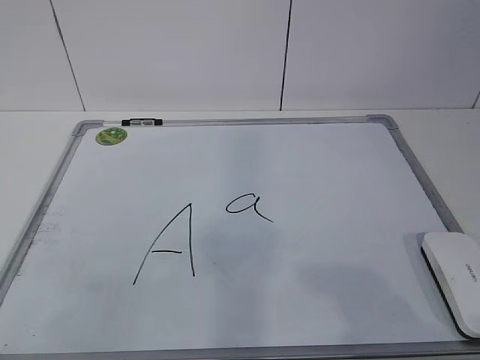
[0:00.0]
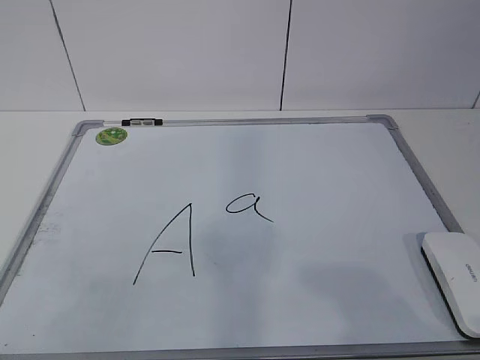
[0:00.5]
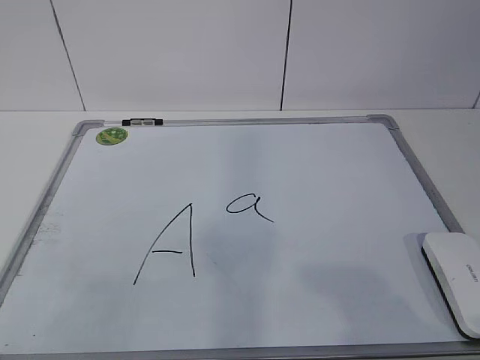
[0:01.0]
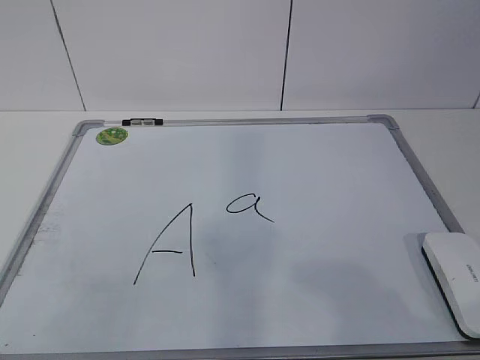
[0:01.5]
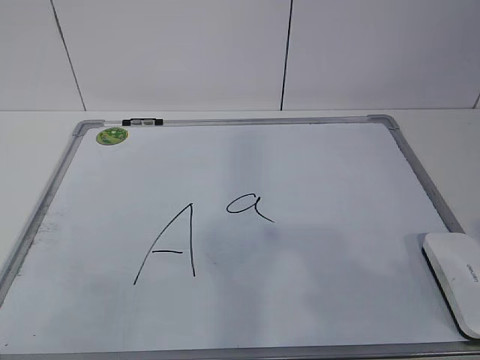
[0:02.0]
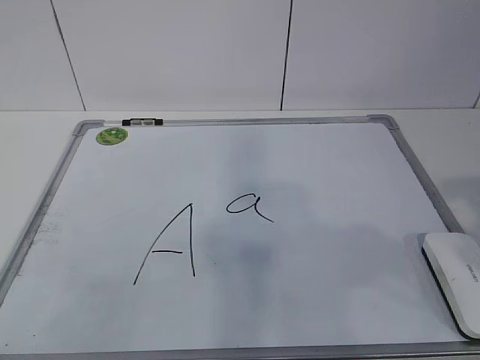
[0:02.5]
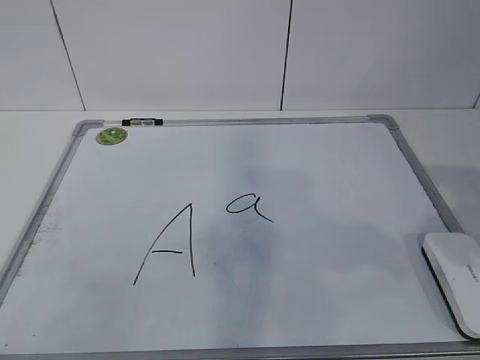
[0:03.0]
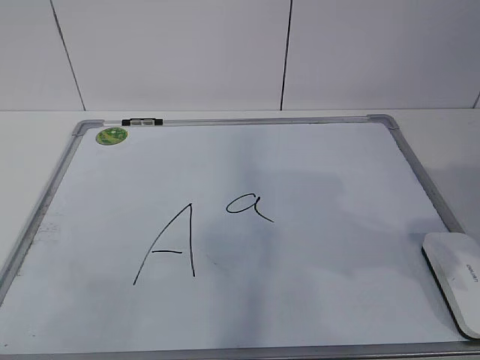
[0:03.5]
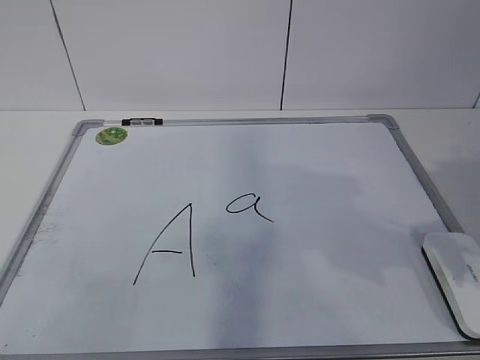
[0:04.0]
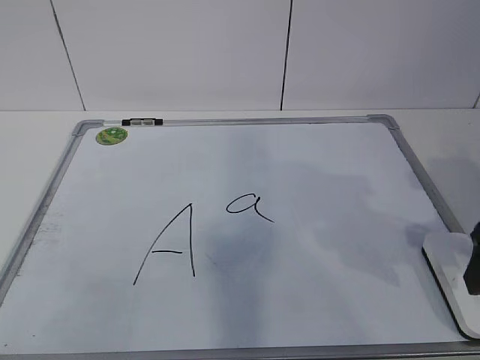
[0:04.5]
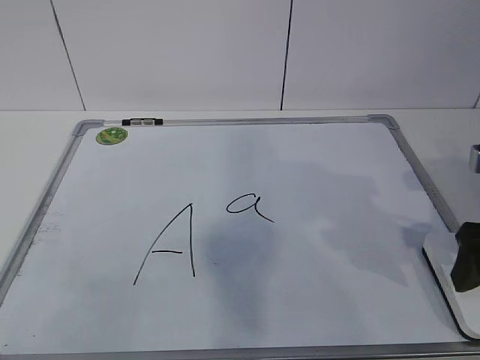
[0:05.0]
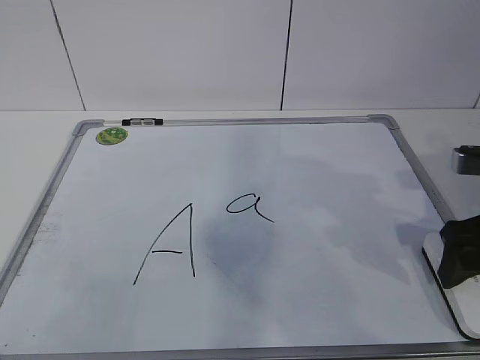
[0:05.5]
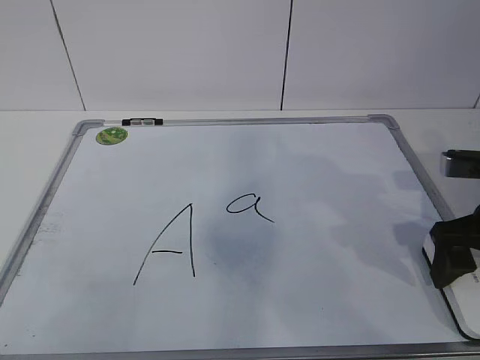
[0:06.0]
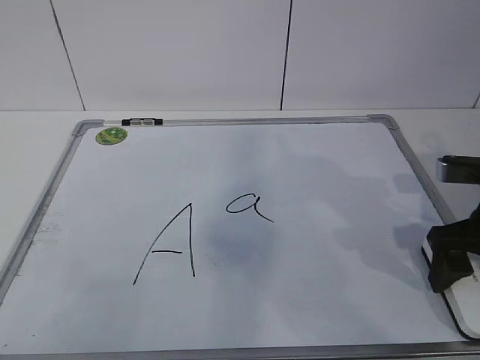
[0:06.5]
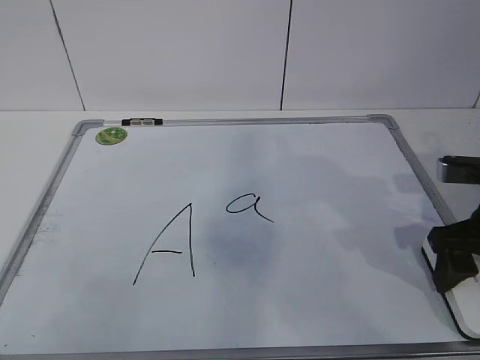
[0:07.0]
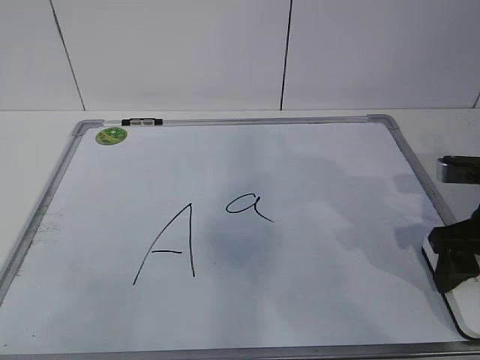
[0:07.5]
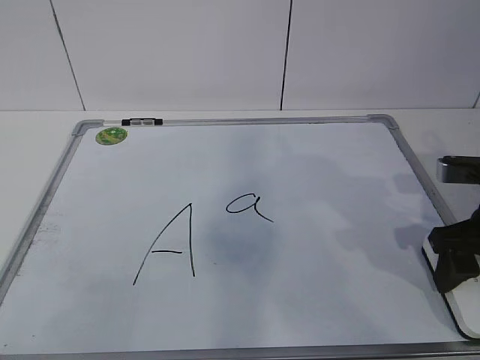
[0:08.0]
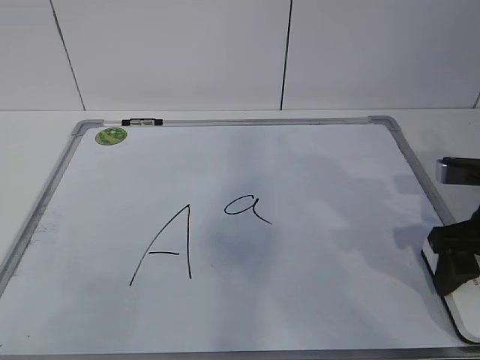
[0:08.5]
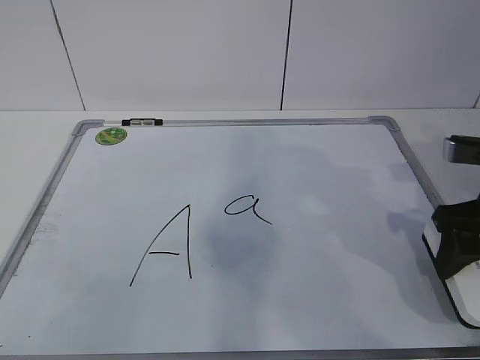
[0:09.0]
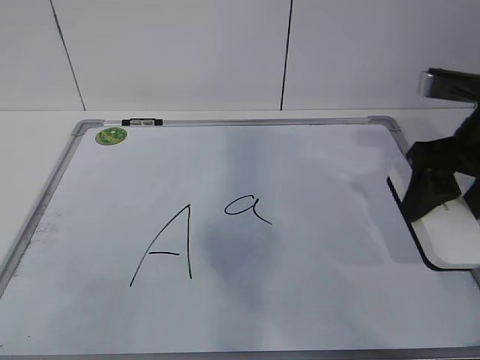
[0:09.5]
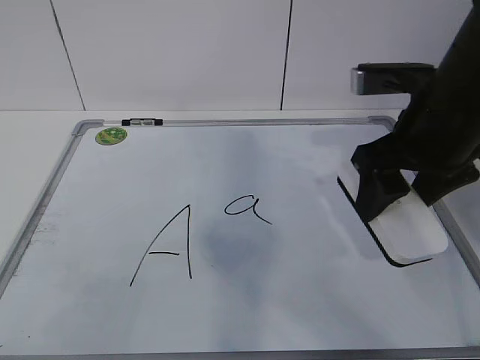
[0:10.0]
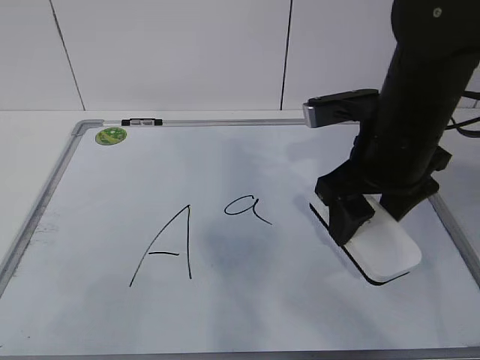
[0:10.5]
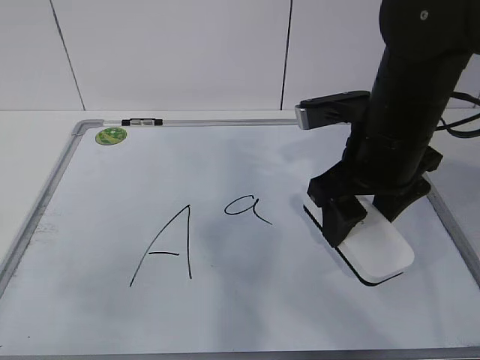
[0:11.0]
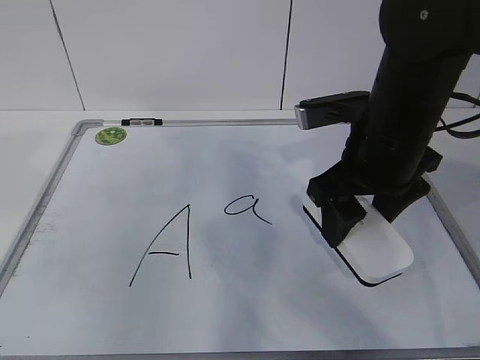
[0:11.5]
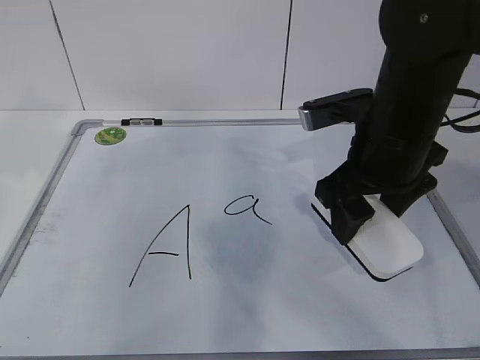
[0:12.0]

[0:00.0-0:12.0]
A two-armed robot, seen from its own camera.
Task of the whole recording: pick up the eraser on the blackboard and erase the letter "a".
Step, 0:00.0 to 0:05.5: Grab the eraser with your right hand.
Step, 0:06.0 to 0:11.5: Hold the drawing board steady with your left hand.
0:02.0 to 0:04.0: The right gripper goes roughly 15 cm forward, and opens its fingers.
0:04.0 to 0:06.0: The right gripper is displaced forward and downward by roughly 10 cm.
0:06.0 to 0:08.0: The right gripper closes.
0:08.0 to 0:10.0: The right gripper goes some 15 cm upward and to the left.
0:10.0 to 0:12.0: The left gripper is displaced forward by some 30 cm.

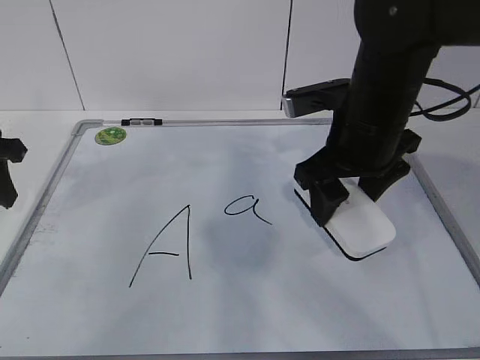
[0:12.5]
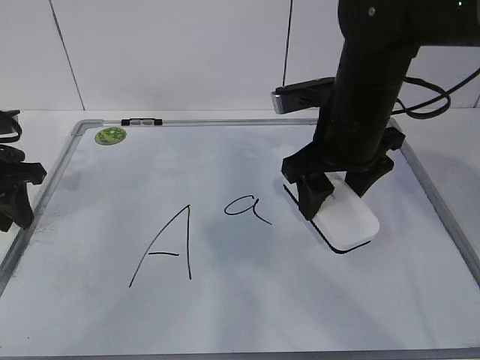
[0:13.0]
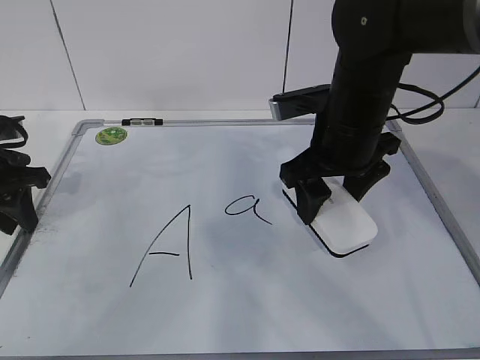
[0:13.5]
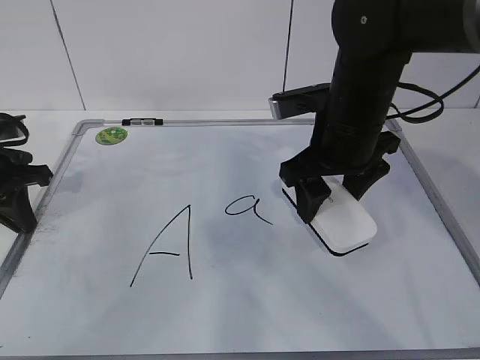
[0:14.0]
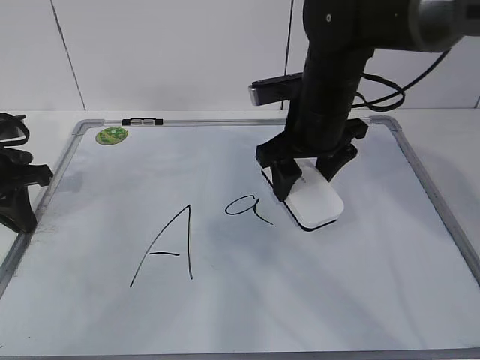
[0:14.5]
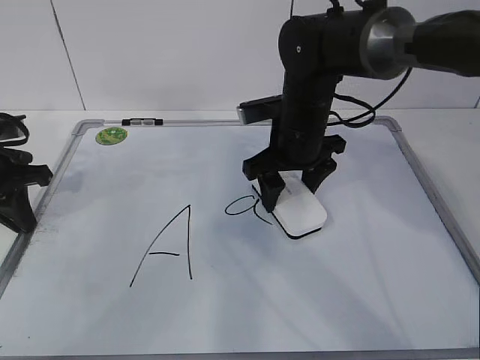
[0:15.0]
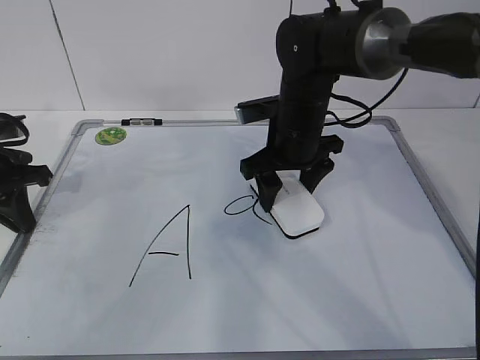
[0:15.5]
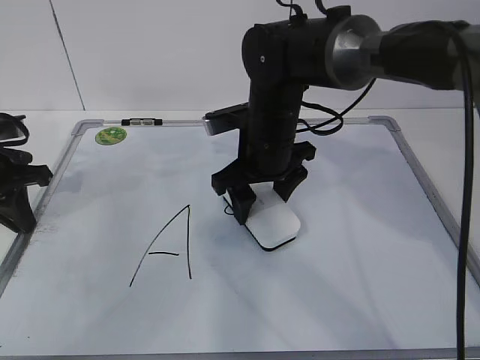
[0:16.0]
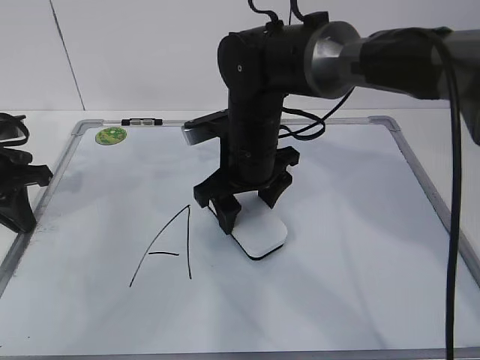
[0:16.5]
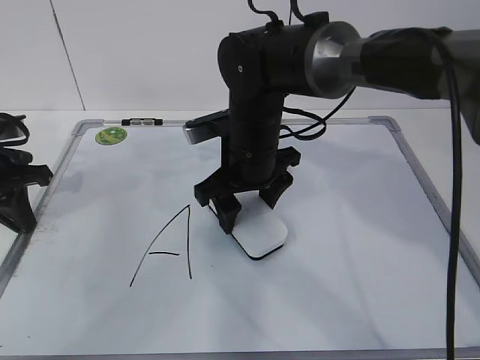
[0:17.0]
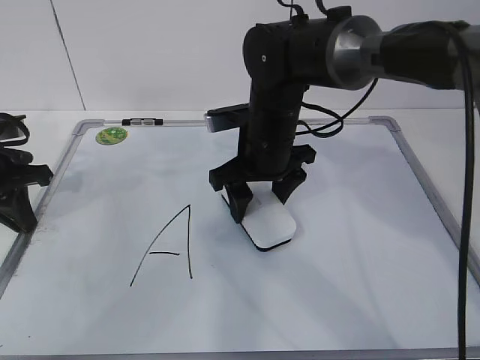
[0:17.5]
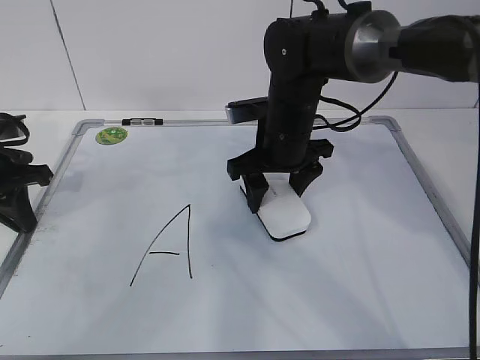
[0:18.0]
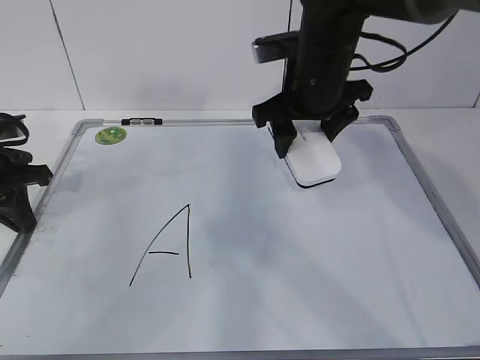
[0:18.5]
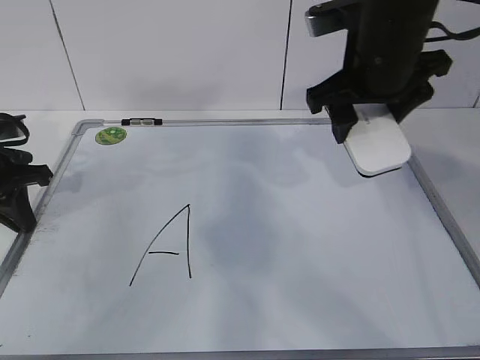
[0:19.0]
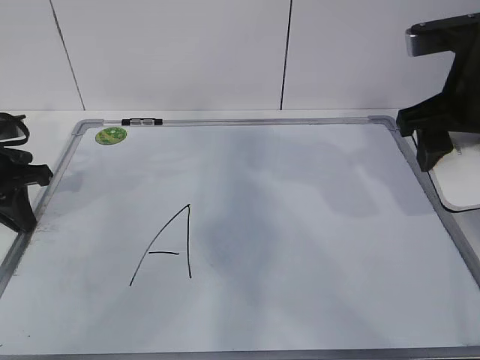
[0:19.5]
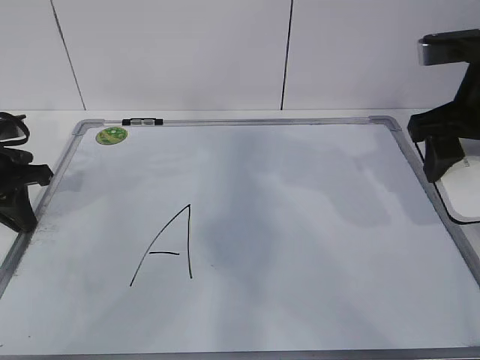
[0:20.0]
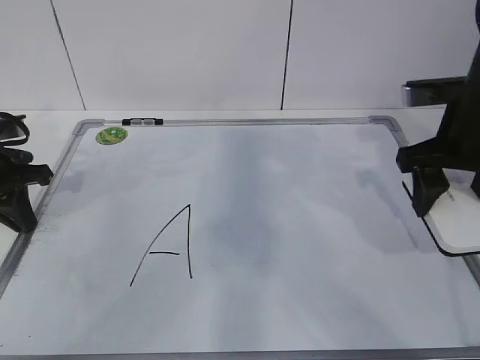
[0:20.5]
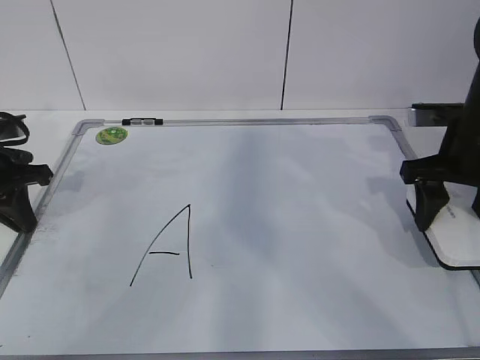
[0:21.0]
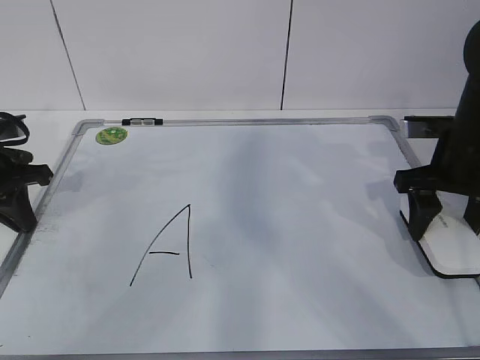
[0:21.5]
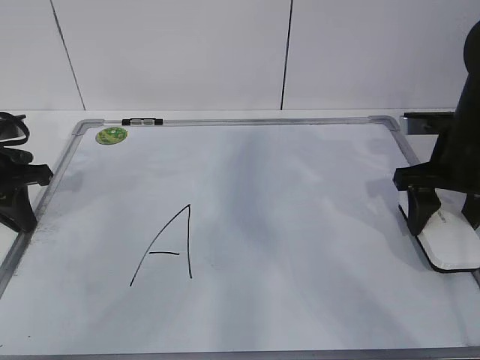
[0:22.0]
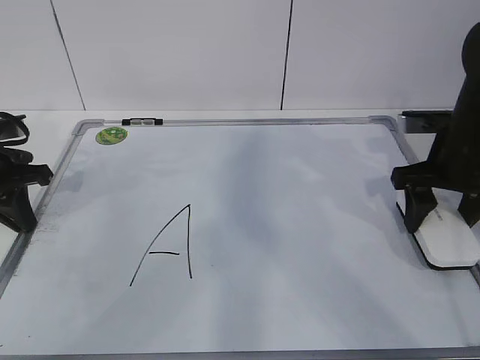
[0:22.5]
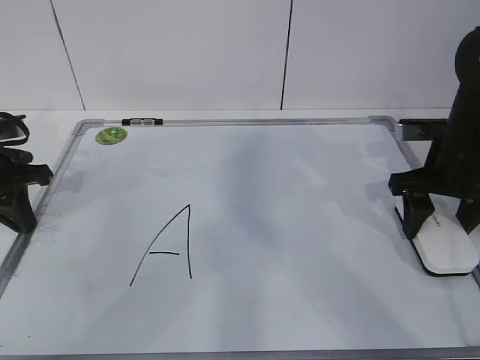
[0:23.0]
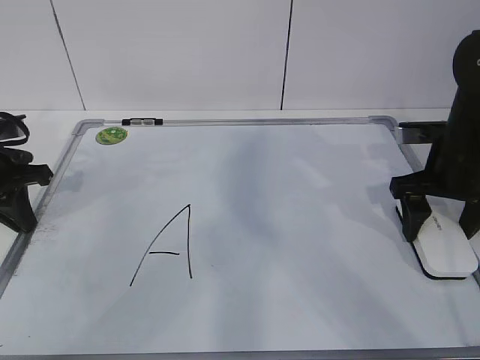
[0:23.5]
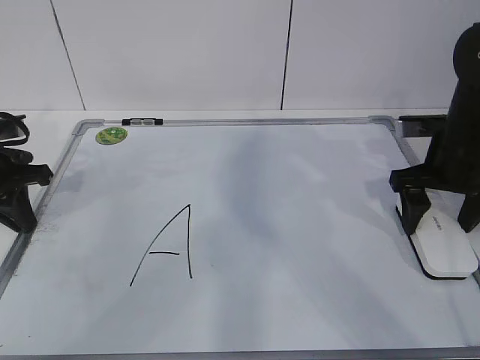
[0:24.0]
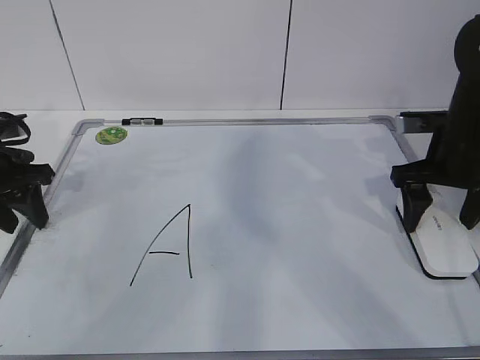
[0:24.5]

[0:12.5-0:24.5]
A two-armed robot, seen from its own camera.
Task of the whole recording: pick up the eraser on the blackboard and erase the letter "a".
Step, 0:12.5 to 0:15.0: Erase the letter a with your right hand.
Step, 0:15.5 to 0:19.0: Put down the eraser with your right hand.
0:12.5 to 0:14.5: The right gripper goes some 5 cm forward, while the left gripper is displaced downward by roughly 5 cm, and closes.
0:14.5 to 0:16.5: The right gripper moves to the left, some 10 cm.
0:16.5 to 0:18.5: The right gripper goes roughly 10 cm upward and to the right.
0:18.5 to 0:20.5: The right gripper shifts some 15 cm to the right and backward.
0:20.5 to 0:22.5: The right gripper ends up some 5 cm from where it was.
0:22.5 to 0:24.5: The left gripper opens its fingers. Meanwhile the right gripper opens its fingers.

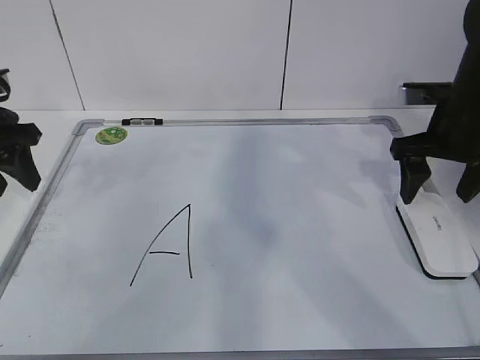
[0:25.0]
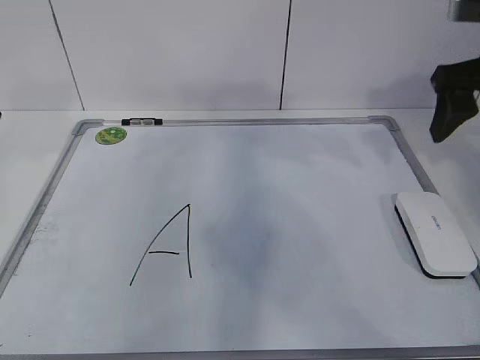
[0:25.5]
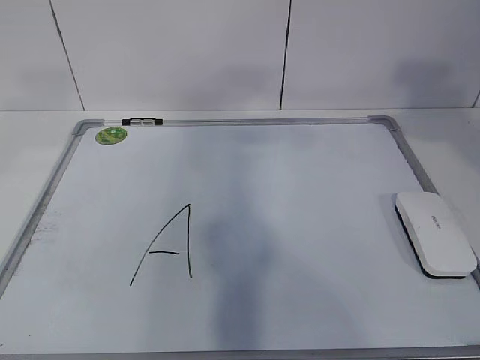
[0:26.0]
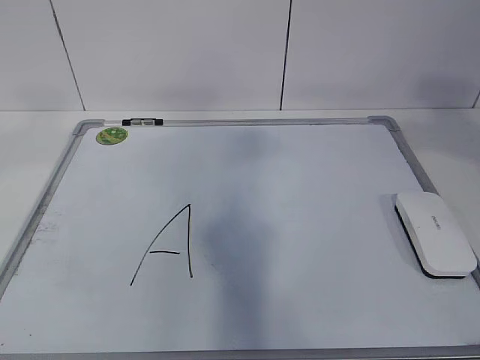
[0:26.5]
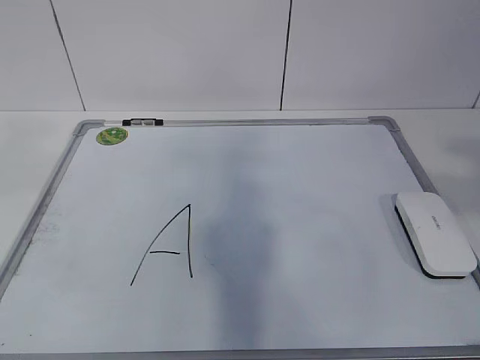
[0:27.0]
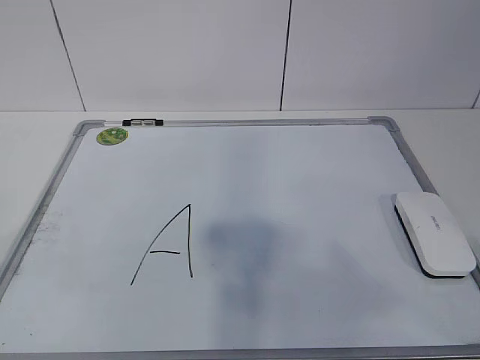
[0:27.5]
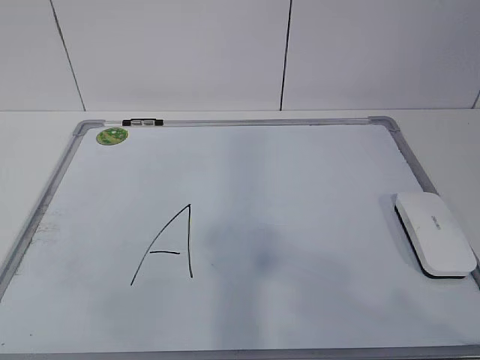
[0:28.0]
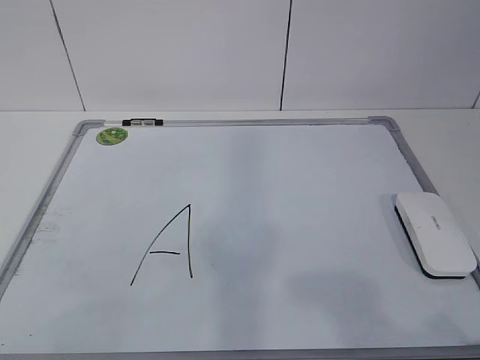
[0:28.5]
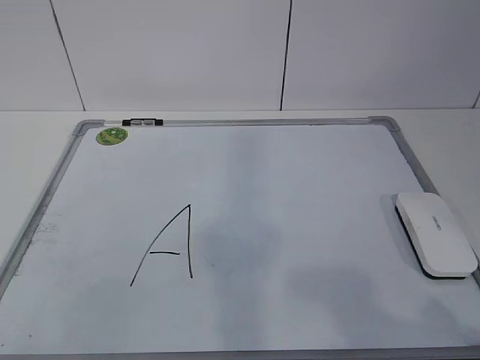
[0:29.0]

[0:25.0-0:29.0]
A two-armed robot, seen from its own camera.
Task of the whole recording: pick up the eraser on the blackboard and erase the letter "a".
0:25.0 to 0:27.0: The grippers both shift backward and upward by roughly 40 cm. The right gripper closes its fingers.
0:27.0 to 0:29.0: Both grippers travel together downward, roughly 15 cm.
